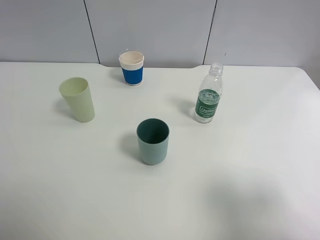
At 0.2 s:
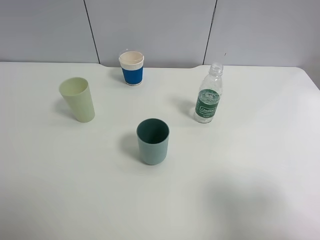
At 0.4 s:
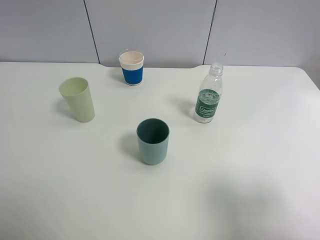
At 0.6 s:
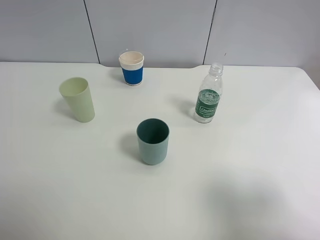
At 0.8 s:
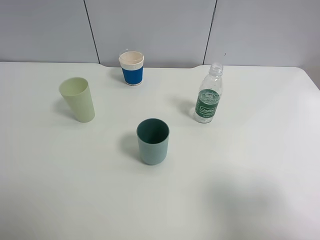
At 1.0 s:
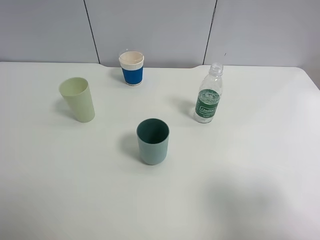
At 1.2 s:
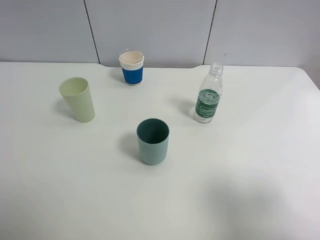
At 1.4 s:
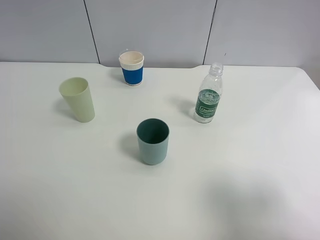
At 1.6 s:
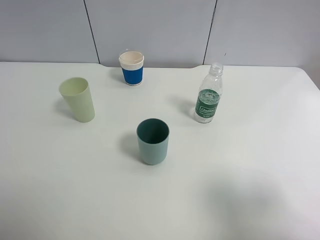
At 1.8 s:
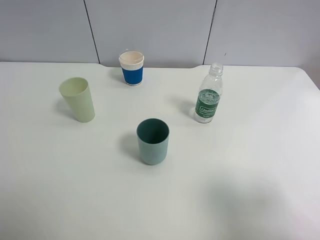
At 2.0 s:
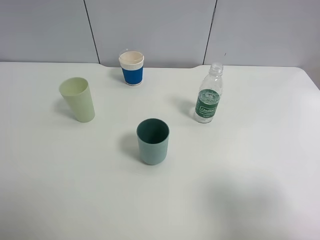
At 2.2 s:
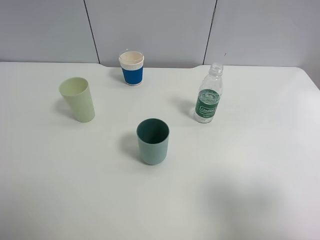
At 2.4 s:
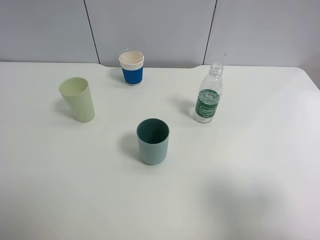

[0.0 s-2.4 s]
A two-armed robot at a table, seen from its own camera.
Task of the whole recording: use a clamp to hold the bottle of the drink, pour the beverage into a random cup, then clamp the cup containing the drink and pour the drink into another random cup.
1.2 to 2.4 s: Neither gripper changes place.
